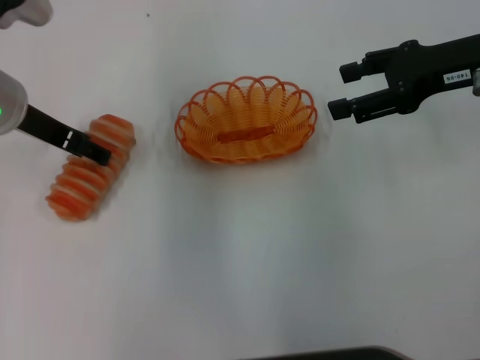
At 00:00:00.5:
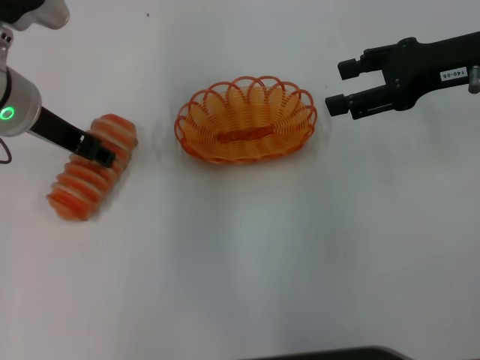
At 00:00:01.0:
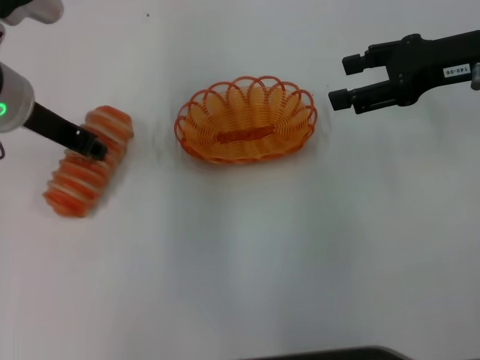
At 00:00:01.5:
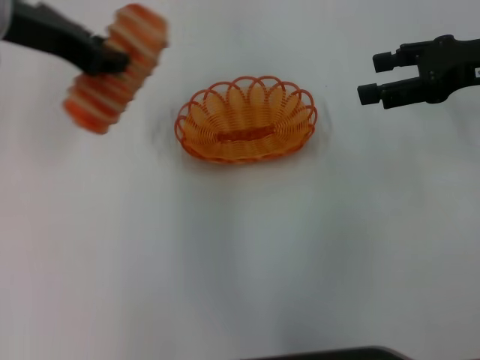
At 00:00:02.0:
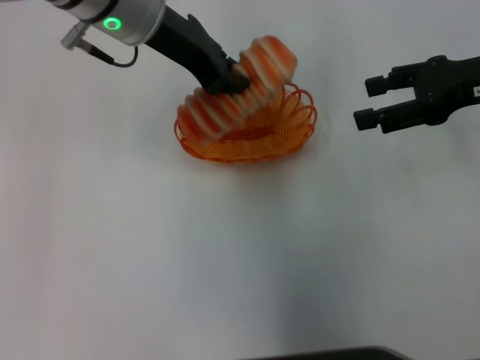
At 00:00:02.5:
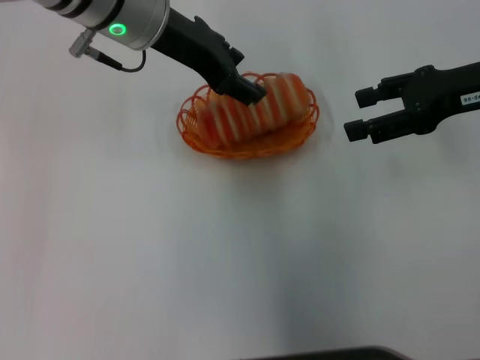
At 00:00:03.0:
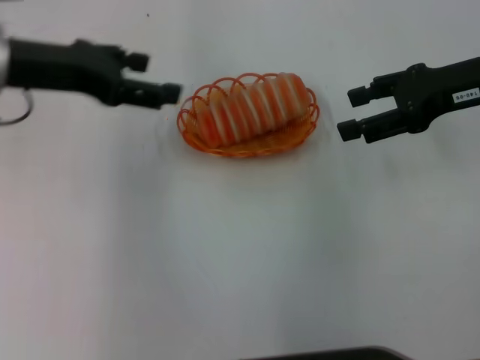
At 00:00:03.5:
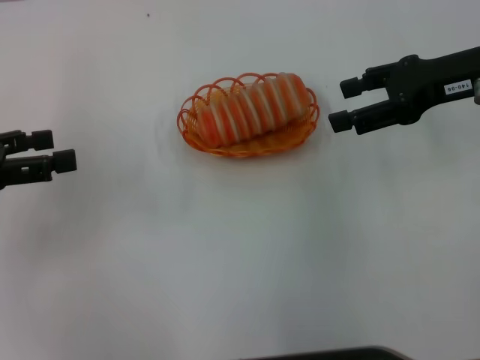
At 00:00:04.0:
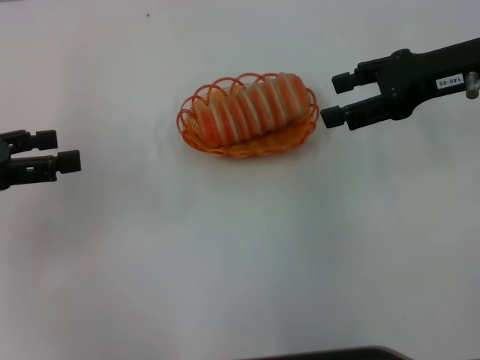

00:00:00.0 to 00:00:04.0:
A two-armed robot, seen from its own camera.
Step, 00:00:00.0 to 00:00:01.0: Pick up the long bread with the left gripper.
Step, 00:00:01.5 to 00:00:02.5: Place the long bread into the basket with the left gripper.
00:00:00.0 to 00:00:02.0: The left gripper goes approximately 15 cm to the right and upward, and closes its fingers.
00:00:02.0 to 00:00:04.0: The left gripper is displaced to the left and backward by about 25 cm, and opens.
